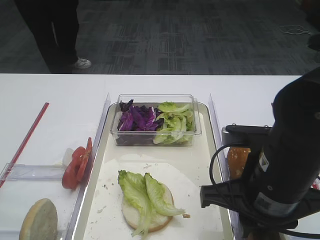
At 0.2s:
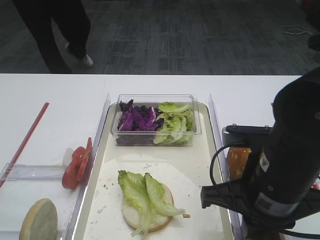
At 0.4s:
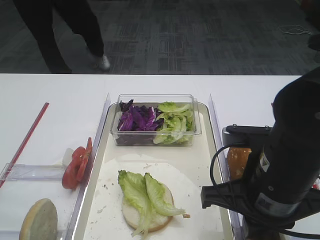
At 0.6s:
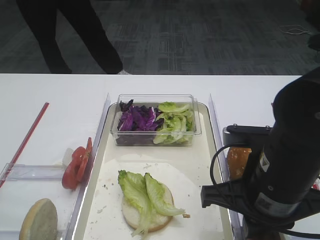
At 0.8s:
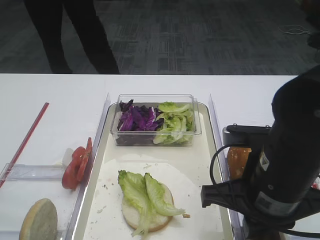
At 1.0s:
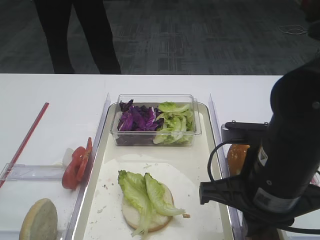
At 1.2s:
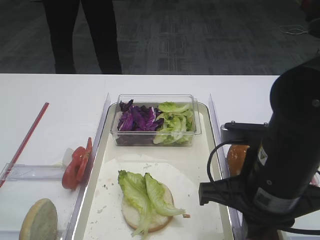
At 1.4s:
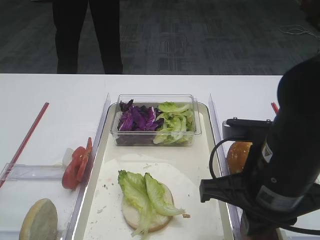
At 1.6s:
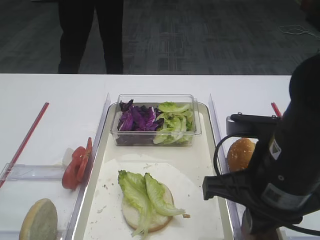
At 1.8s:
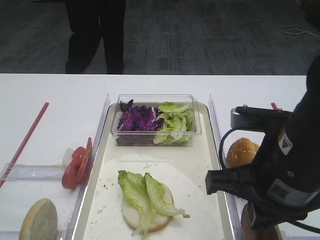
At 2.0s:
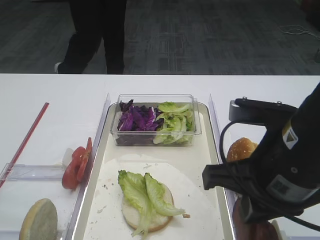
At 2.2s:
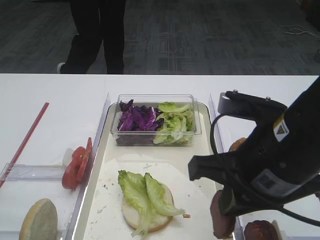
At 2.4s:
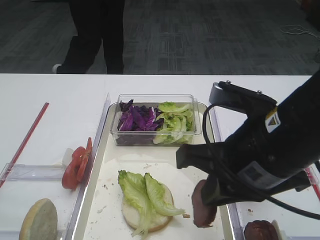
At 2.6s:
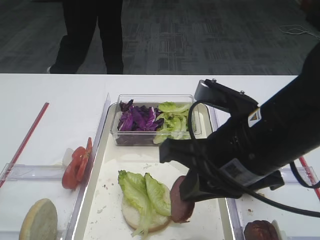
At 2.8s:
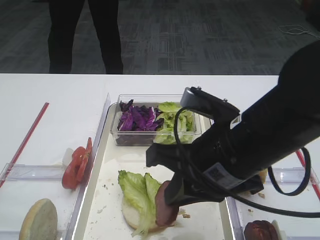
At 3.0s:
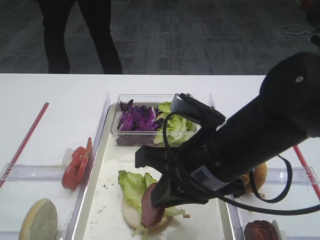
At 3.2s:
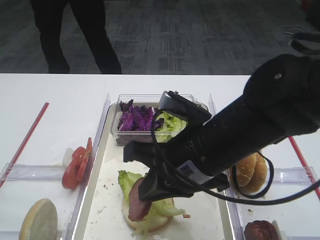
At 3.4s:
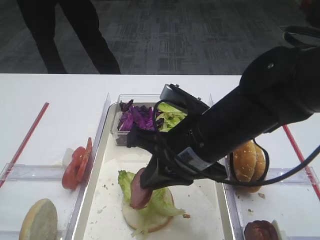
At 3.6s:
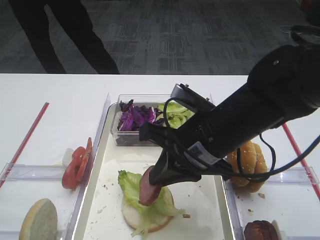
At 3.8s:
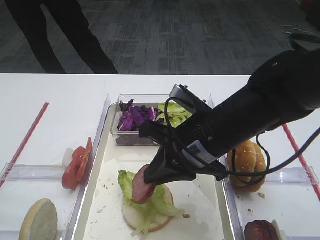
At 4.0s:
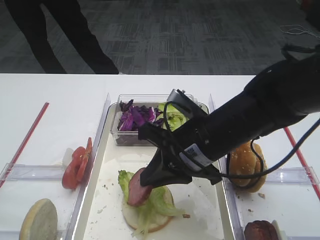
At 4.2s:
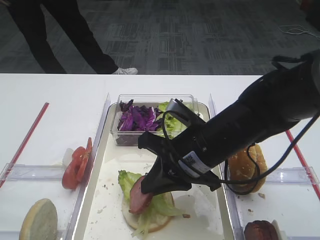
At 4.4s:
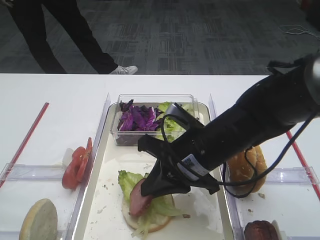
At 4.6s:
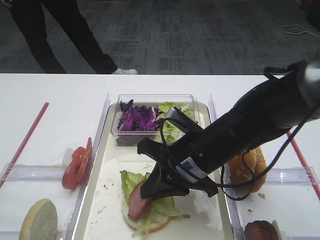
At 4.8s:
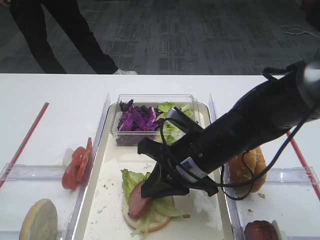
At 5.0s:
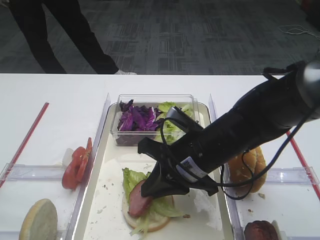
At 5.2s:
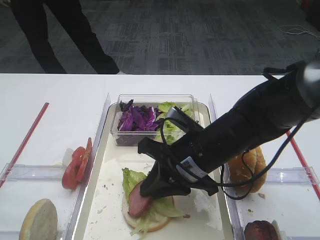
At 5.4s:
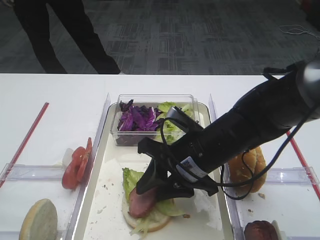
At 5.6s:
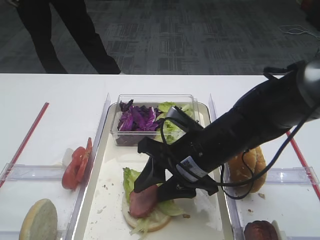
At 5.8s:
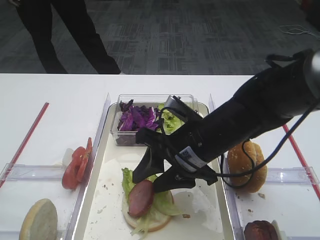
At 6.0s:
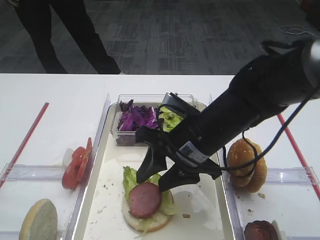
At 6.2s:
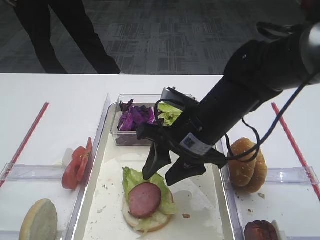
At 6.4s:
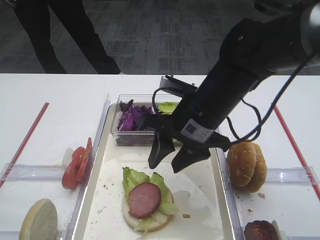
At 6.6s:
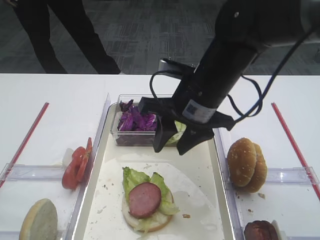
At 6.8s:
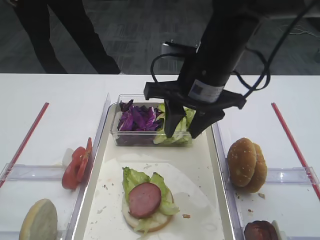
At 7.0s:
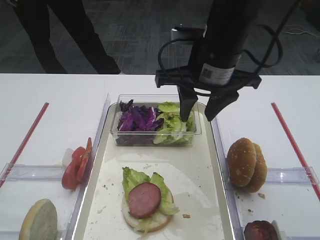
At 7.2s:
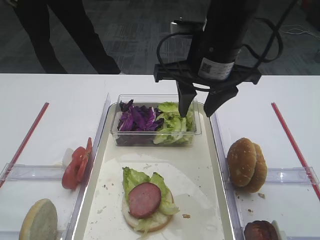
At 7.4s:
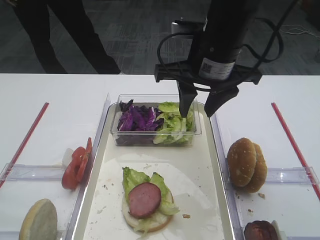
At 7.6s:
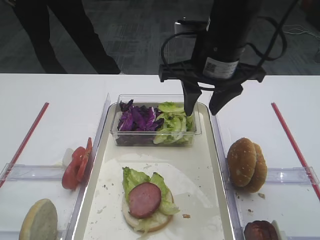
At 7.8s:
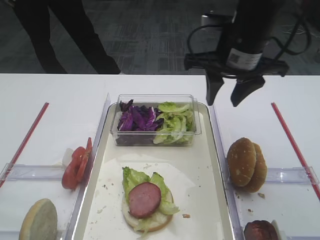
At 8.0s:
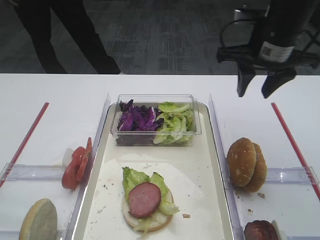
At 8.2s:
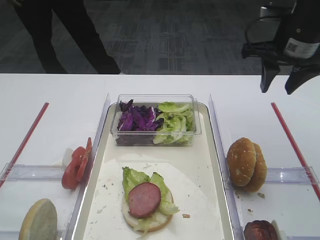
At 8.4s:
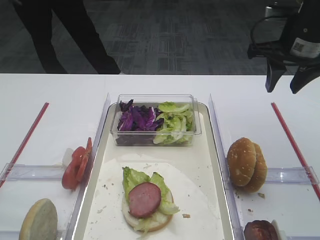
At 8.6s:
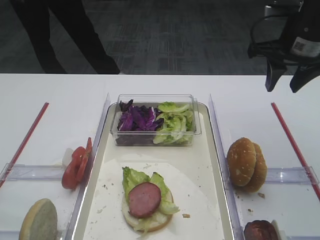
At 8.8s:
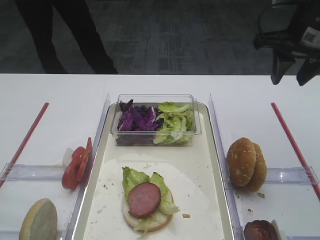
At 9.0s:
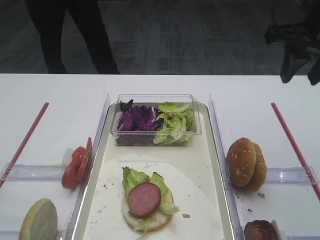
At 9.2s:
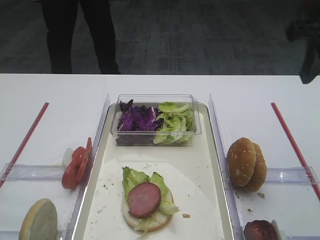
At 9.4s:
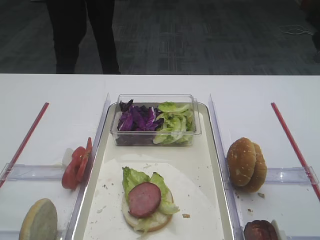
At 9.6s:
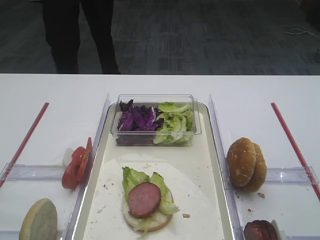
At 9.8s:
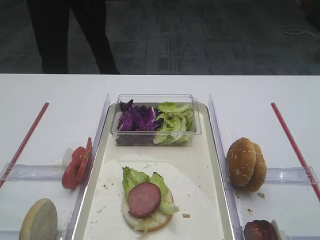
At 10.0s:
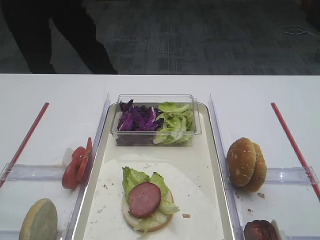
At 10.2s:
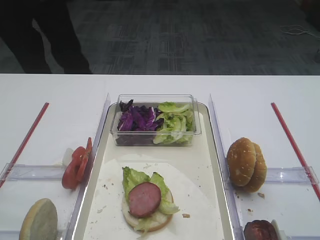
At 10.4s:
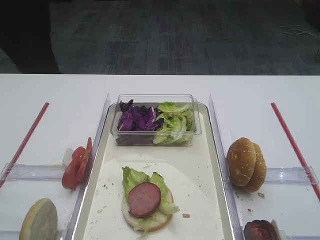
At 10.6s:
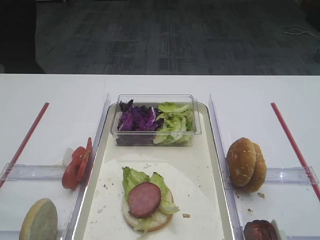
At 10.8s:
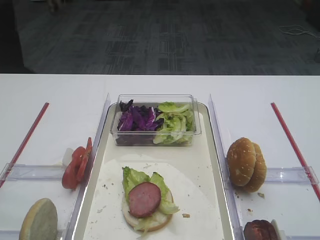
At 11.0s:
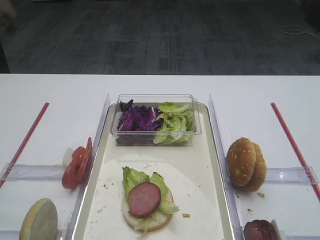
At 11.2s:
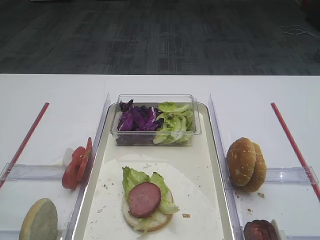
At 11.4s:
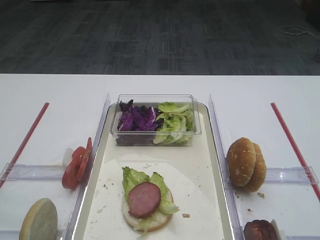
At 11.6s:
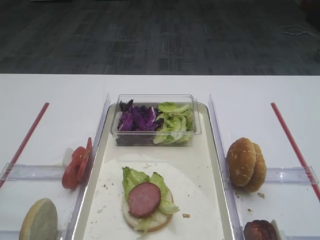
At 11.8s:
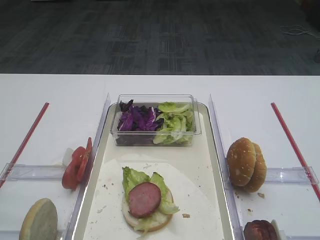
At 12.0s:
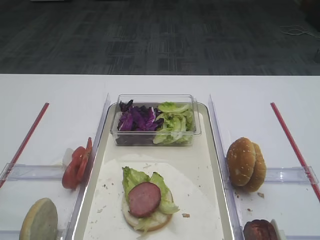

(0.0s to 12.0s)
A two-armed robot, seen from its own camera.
Step, 1.8s - 6.6s: Place the cutlet on the lettuce leaf with the right gripper.
0.0s - 1.6s: The right gripper closes its fingers.
1.6s - 3.0s: The right gripper moves to the left, some 5 cm.
3.0s - 4.4s: The right gripper heads forward and downward, covering roughly 10 cm.
4.4s - 6.0s: The right gripper opens its fingers.
6.0s - 7.6s: The right gripper travels upward and forward by about 15 cm.
7.6s - 9.0s: The right gripper moves to the right, approximately 15 cm.
9.0s - 10.4s: The right gripper travels backward by roughly 25 cm.

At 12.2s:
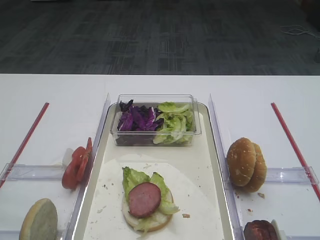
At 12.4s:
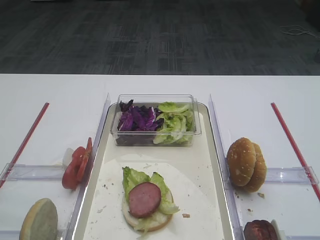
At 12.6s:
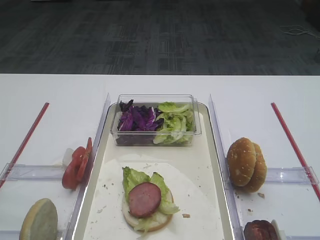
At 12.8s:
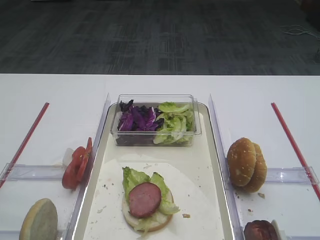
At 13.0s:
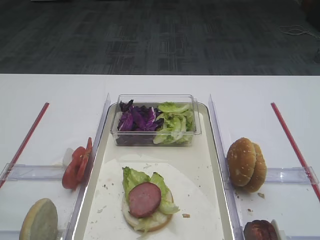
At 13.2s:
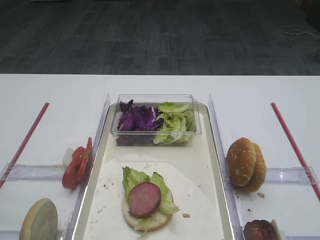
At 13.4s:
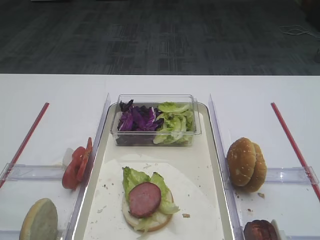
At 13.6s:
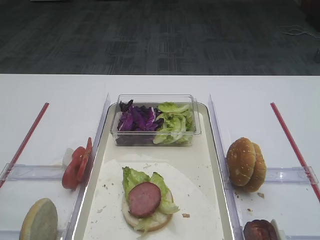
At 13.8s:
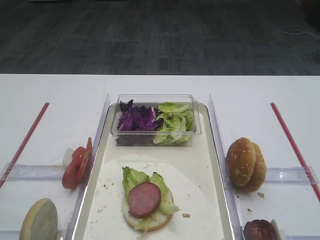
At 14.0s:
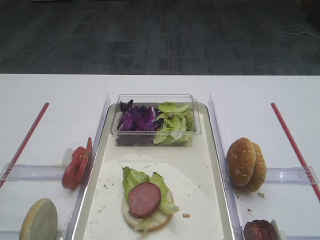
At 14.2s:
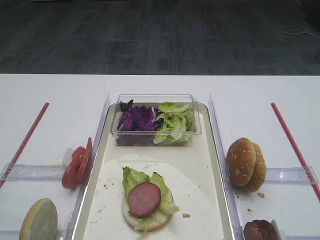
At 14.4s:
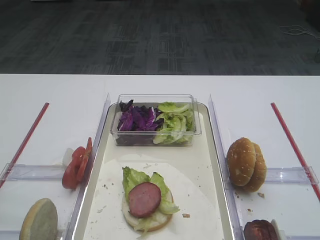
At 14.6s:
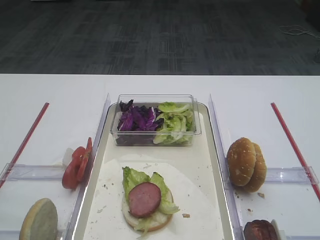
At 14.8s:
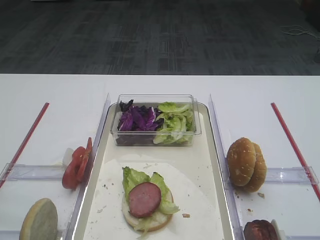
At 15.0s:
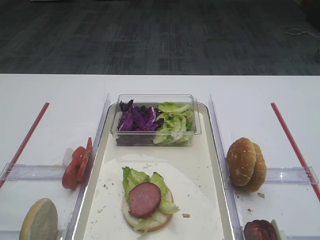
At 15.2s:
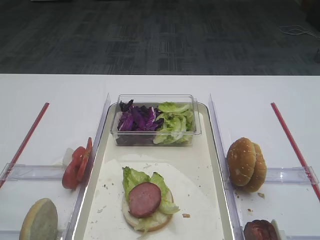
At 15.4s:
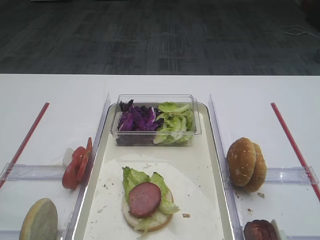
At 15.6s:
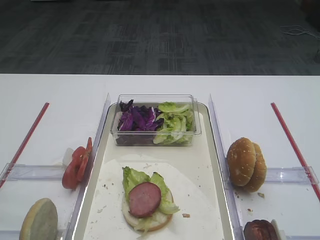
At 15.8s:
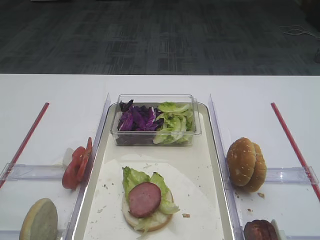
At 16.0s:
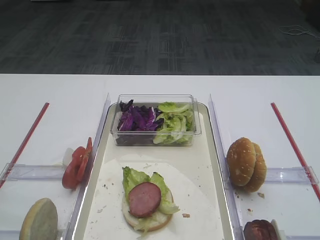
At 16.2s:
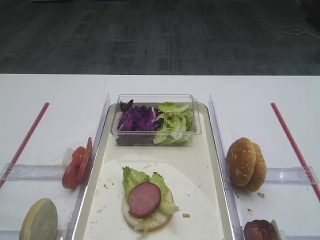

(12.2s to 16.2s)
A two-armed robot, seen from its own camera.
13.6s - 16.2s: The two grippers keep their place.

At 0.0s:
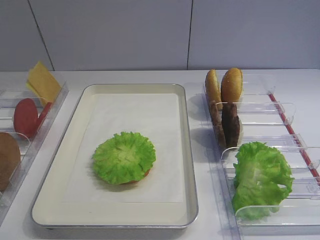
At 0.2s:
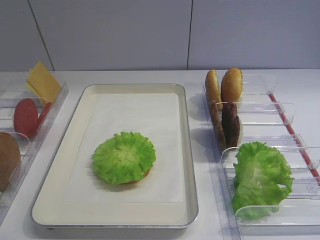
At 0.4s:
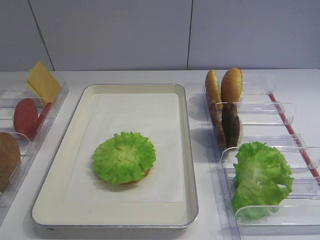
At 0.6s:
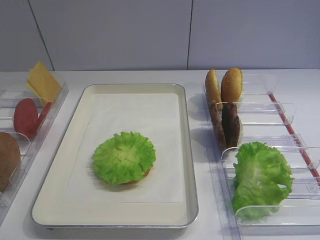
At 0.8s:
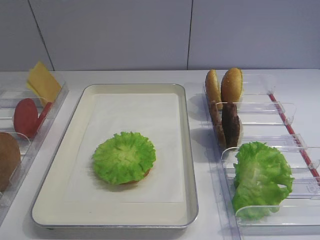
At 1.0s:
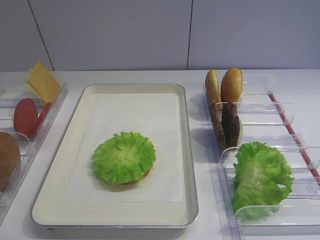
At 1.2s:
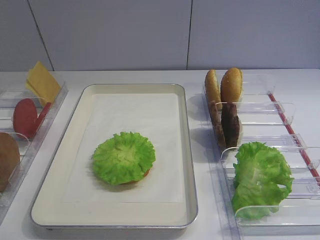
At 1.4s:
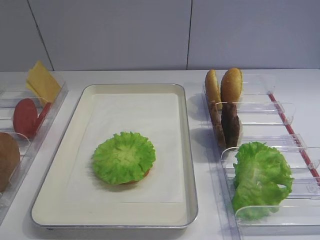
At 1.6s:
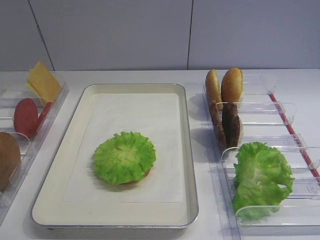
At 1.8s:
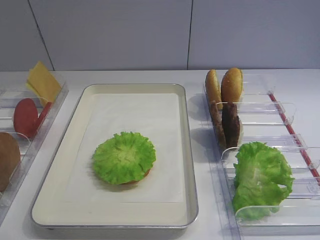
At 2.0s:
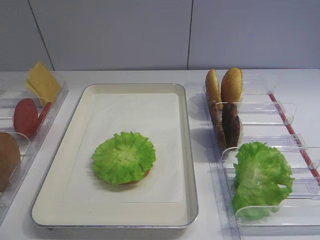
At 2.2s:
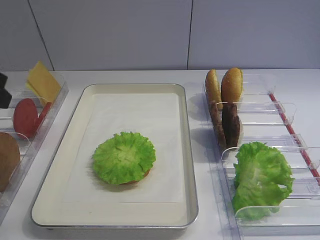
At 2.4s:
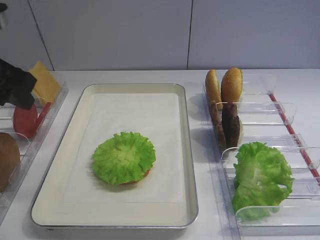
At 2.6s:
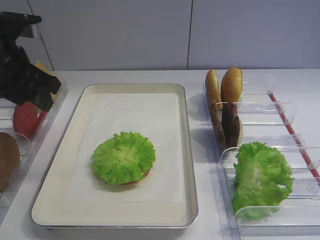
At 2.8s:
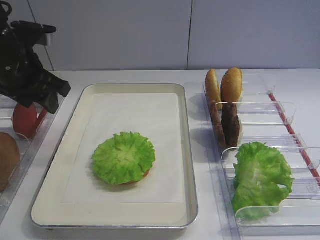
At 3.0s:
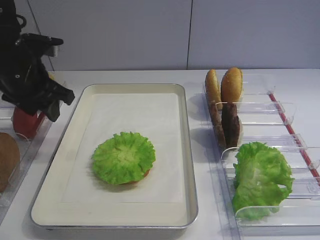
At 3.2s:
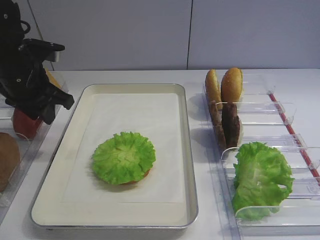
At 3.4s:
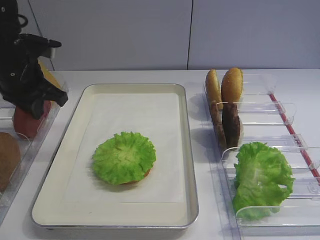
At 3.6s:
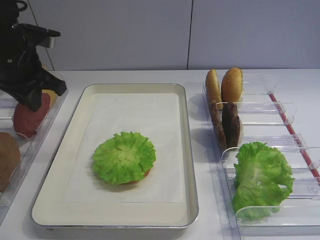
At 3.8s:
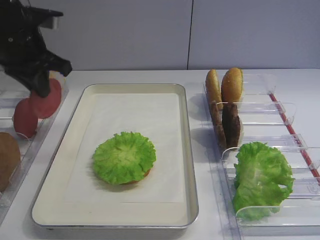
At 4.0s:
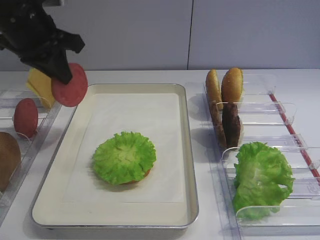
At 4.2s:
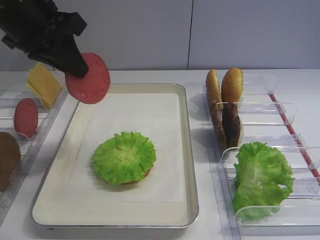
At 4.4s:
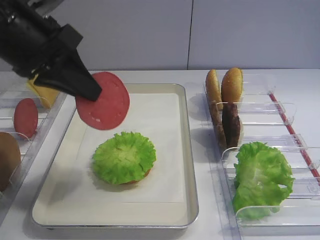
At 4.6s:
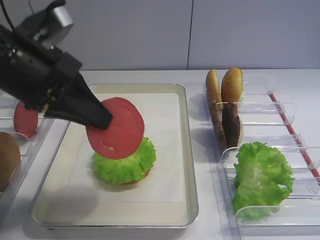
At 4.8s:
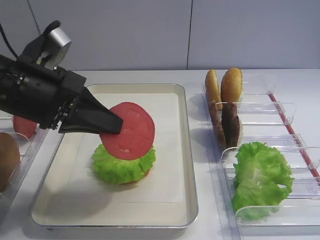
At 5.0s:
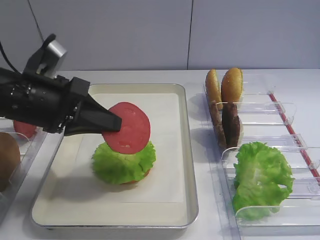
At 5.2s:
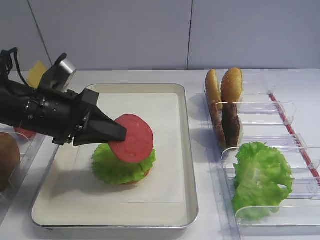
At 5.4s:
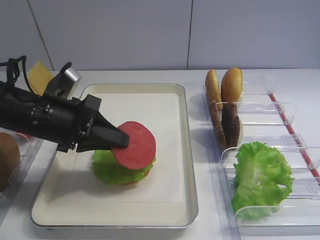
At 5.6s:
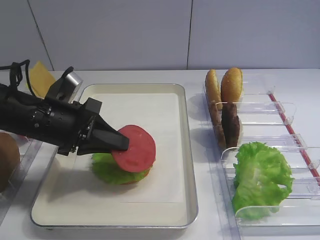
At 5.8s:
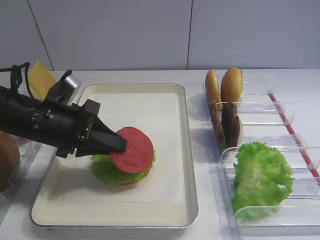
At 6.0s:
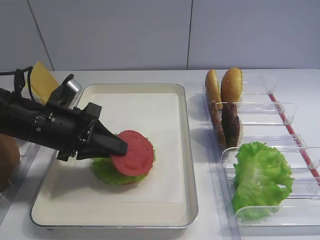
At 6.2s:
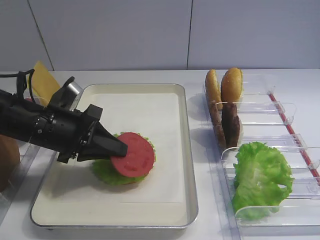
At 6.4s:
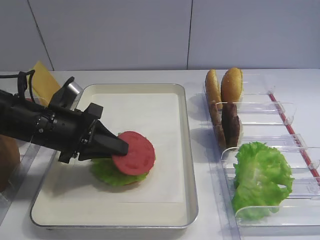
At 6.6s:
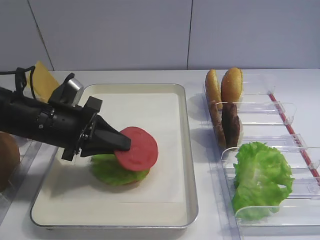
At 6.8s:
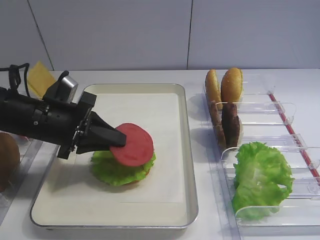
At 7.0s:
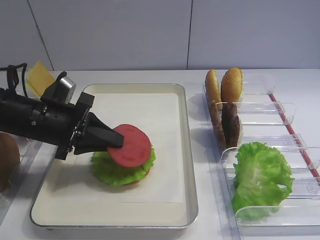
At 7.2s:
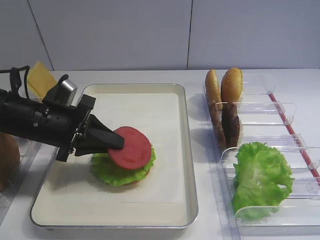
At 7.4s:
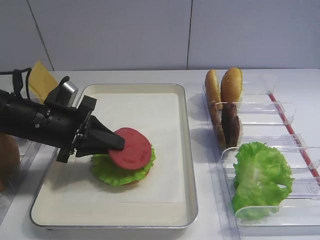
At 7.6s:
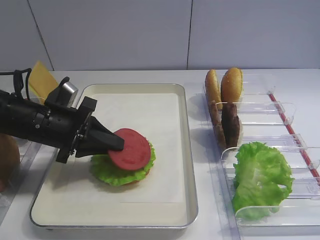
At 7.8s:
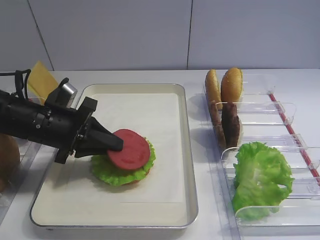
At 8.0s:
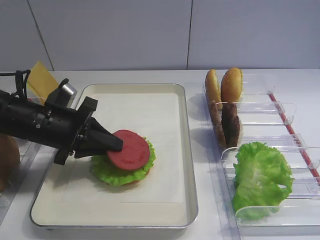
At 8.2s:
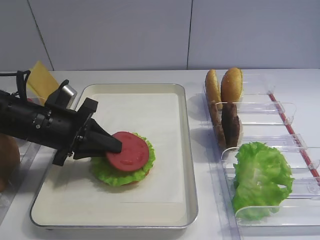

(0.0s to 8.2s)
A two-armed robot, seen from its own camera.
Step, 0.0s - 3.6s: Pick up the tomato slice with the left gripper.
1.6s - 3.2s: The left gripper goes about 30 cm forward.
3.2s - 5.0s: The left gripper travels backward and to the right by about 10 cm, and closes.
5.0s - 6.6s: The left gripper moves downward, some 5 cm.
6.6s - 8.2s: There are only small adjustments of the grippers.
